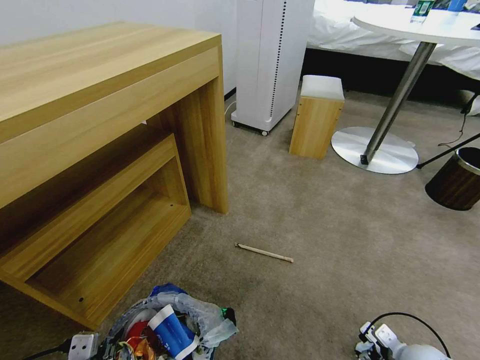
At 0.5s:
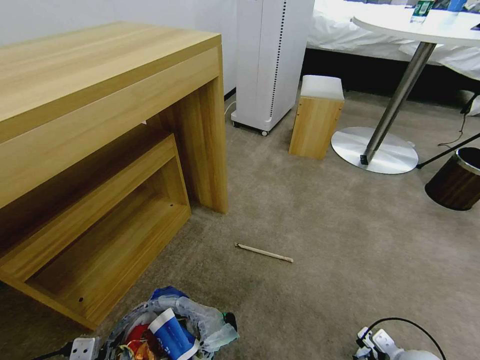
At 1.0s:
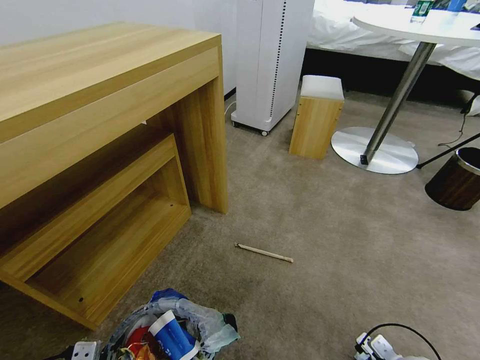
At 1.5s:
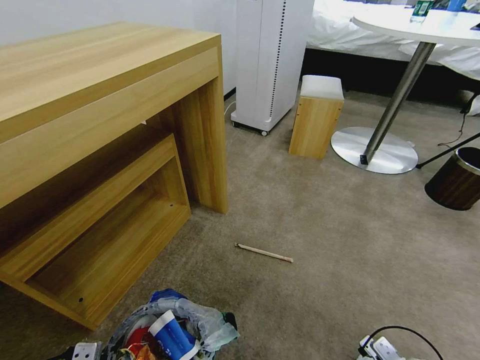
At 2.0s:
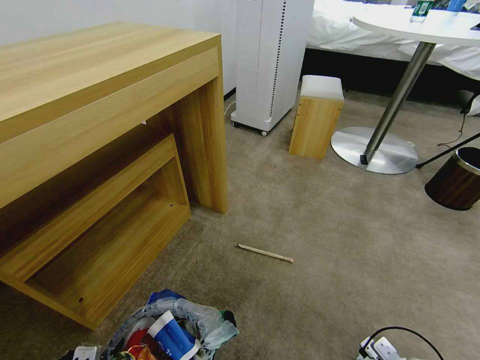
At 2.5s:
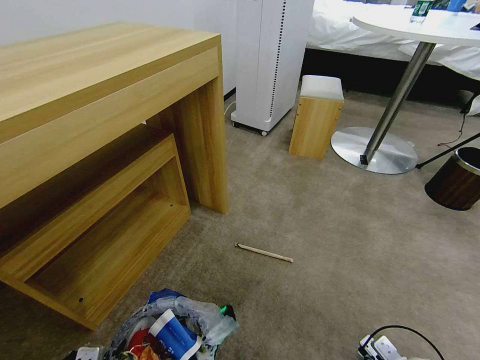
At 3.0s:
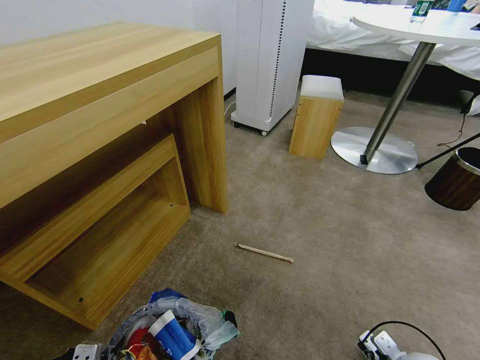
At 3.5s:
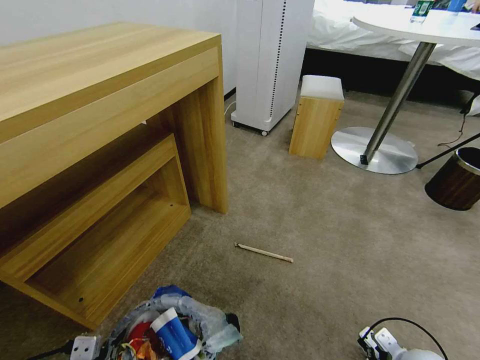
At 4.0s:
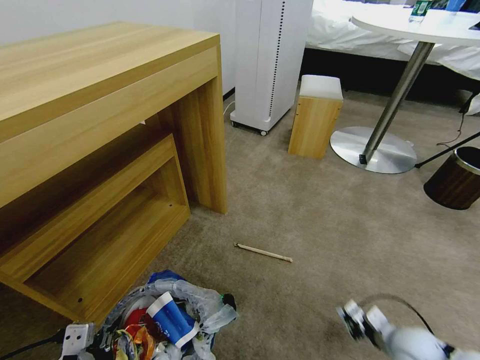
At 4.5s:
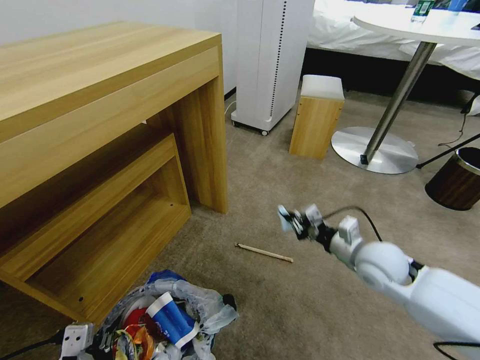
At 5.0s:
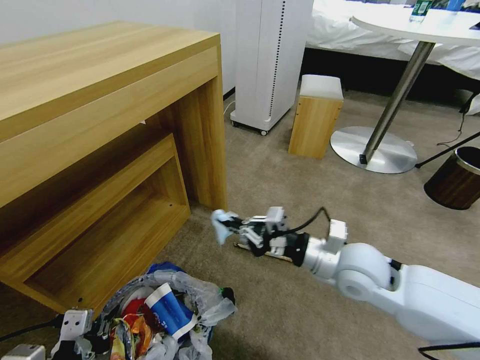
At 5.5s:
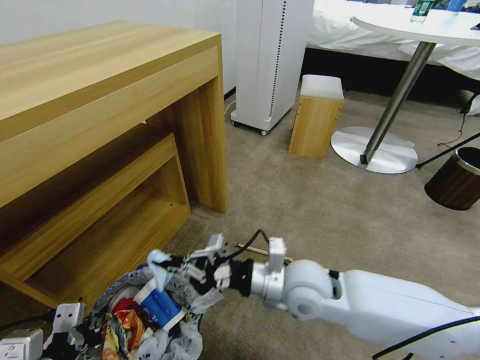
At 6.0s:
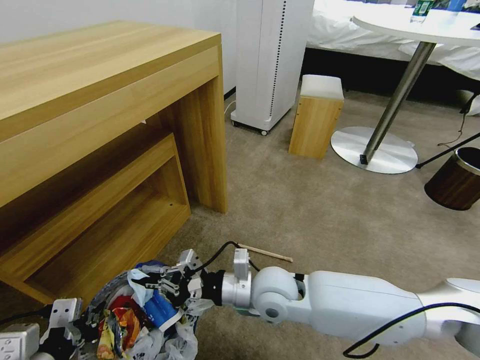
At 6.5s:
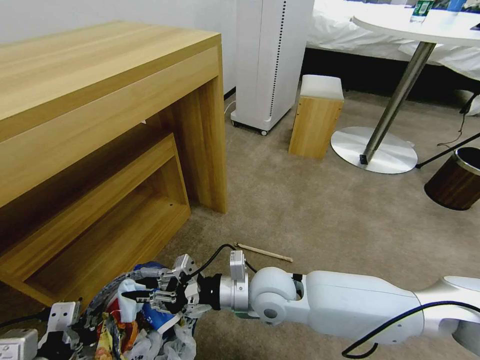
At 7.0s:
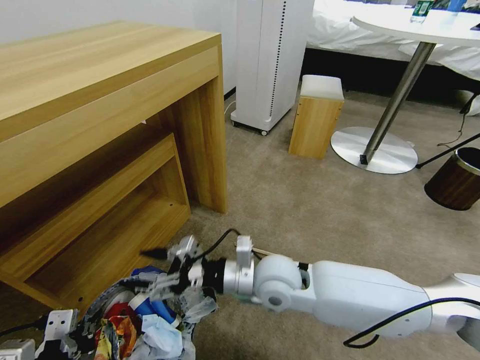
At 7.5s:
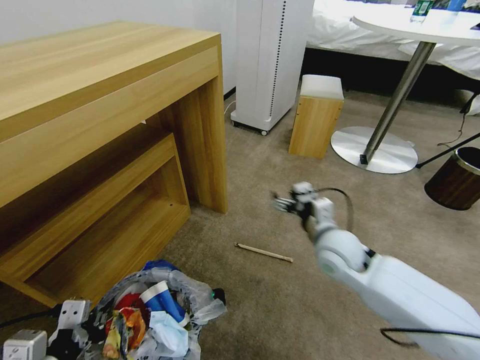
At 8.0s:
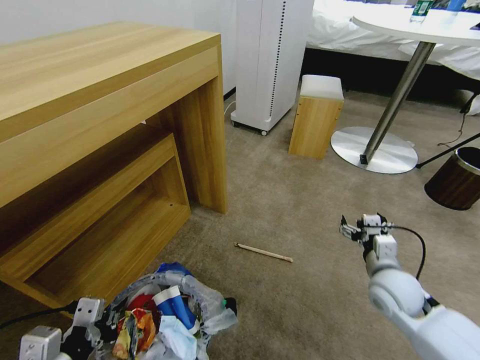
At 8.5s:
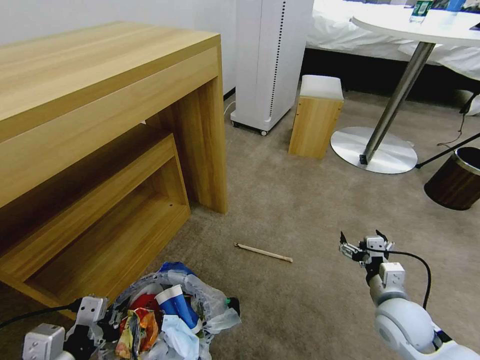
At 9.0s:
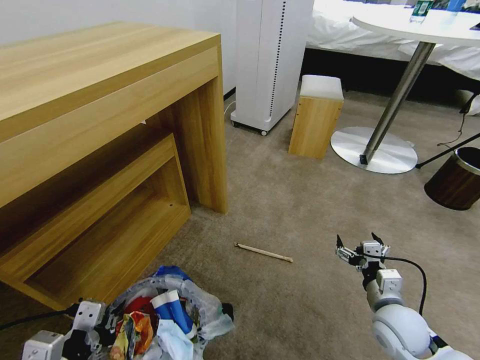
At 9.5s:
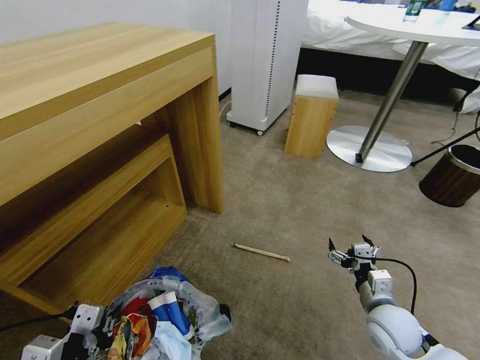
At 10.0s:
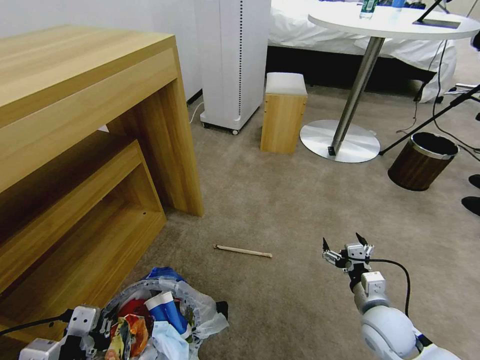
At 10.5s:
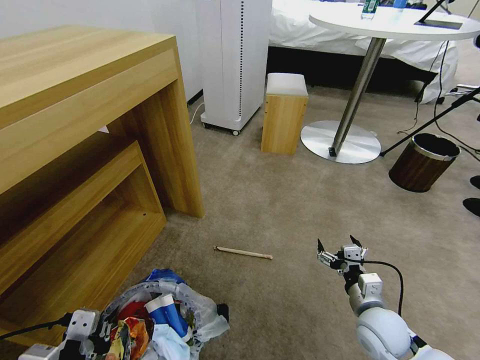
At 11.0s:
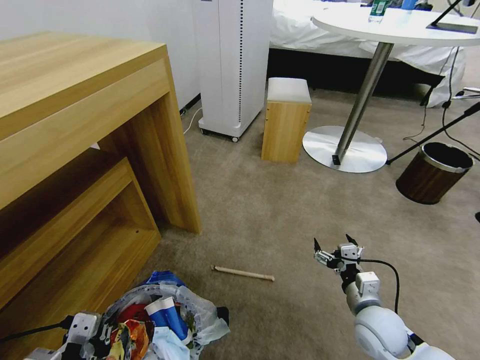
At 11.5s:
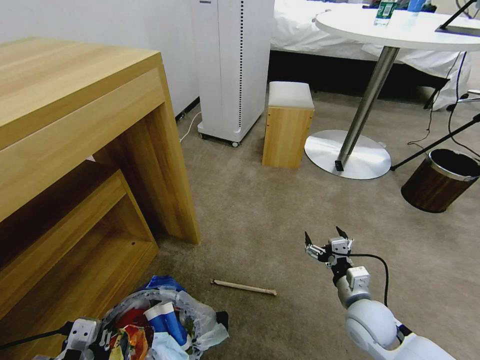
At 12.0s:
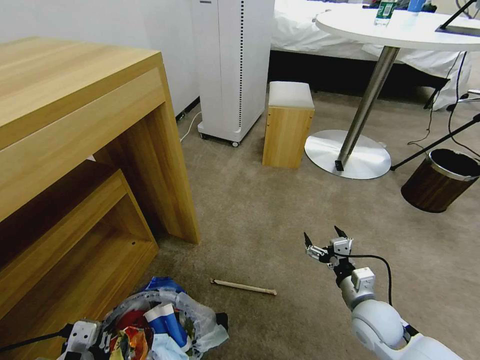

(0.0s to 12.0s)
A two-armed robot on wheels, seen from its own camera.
Task of the whole recording: Pick up the trash bin and place the garbage on the floor into it.
0.0s - 2.0s: The grippers move only a little.
2.0s - 4.0s: The right gripper shifts roughly 5 cm forward, and closes.
4.0s - 6.0s: The left gripper ends up approximately 5 cm from where it was. The right gripper goes roughly 35 cm to the left and upward.
6.0s - 8.0s: The right gripper is displaced to the right by some 25 cm, and opens its fingers.
8.0s - 10.0s: The right gripper travels backward and downward by about 10 cm.

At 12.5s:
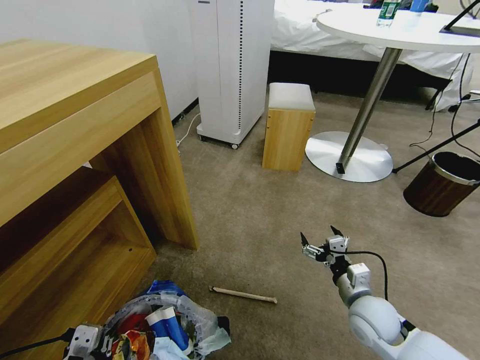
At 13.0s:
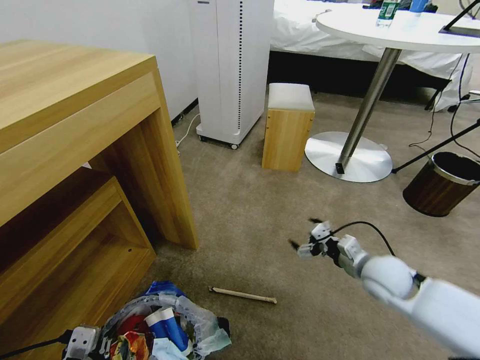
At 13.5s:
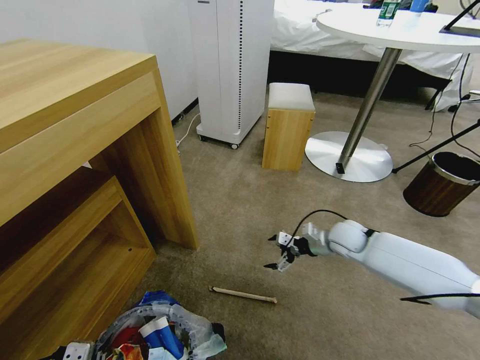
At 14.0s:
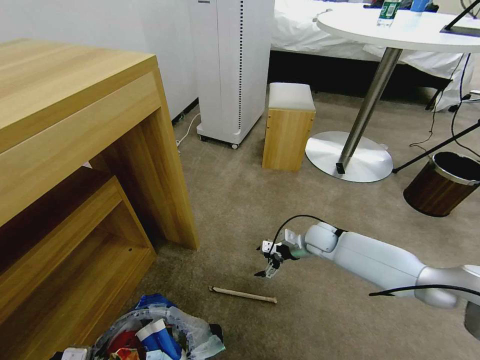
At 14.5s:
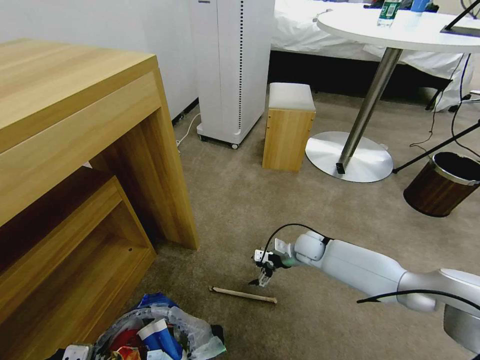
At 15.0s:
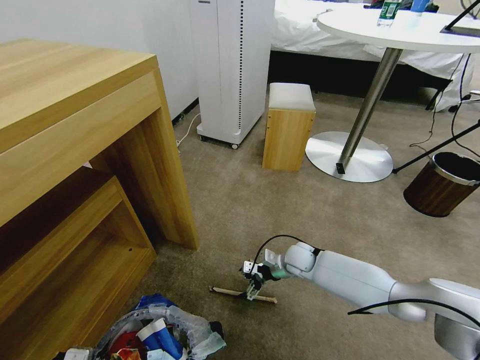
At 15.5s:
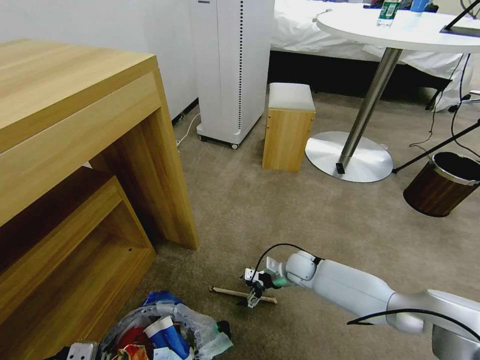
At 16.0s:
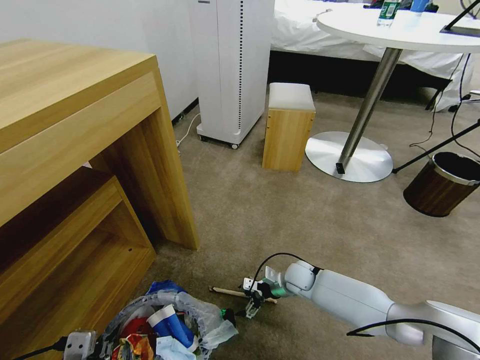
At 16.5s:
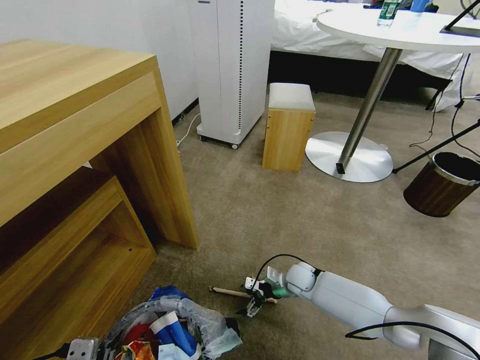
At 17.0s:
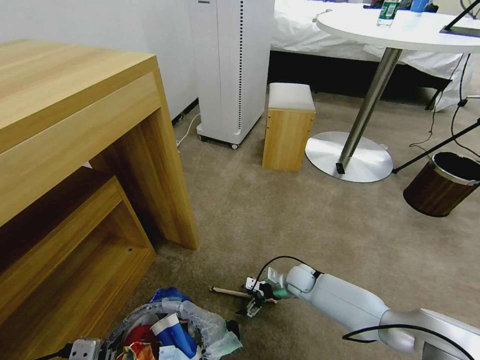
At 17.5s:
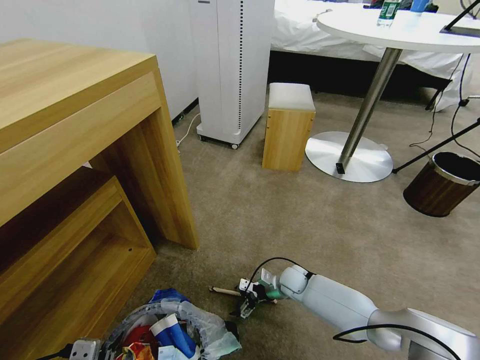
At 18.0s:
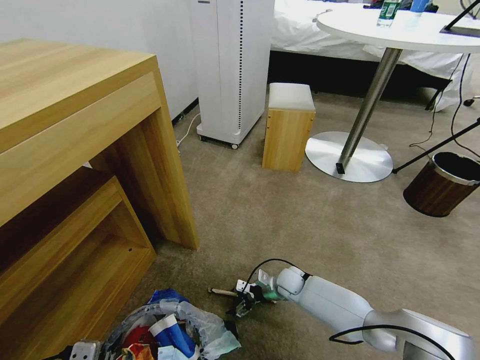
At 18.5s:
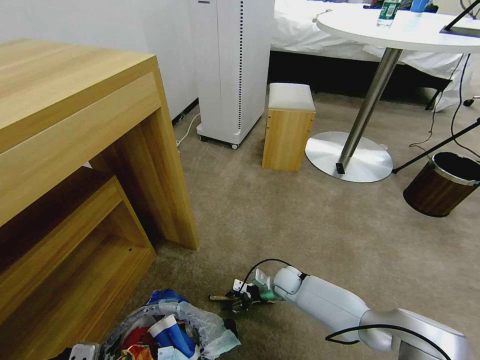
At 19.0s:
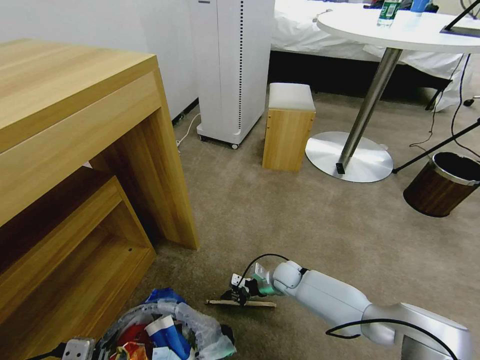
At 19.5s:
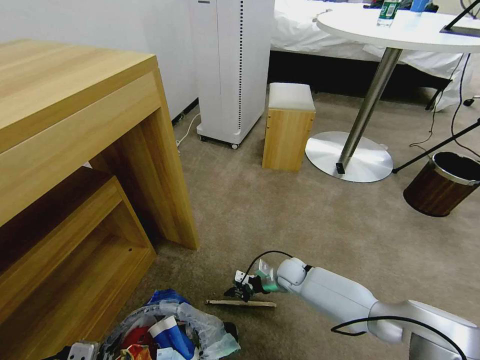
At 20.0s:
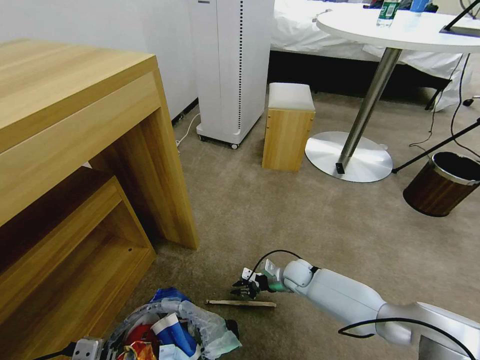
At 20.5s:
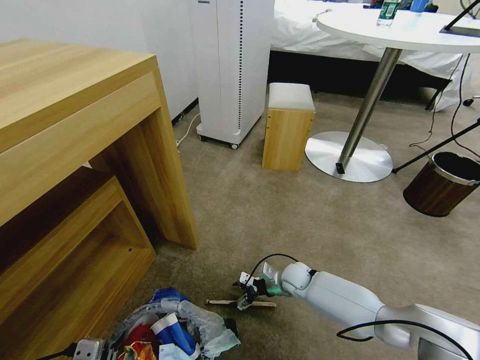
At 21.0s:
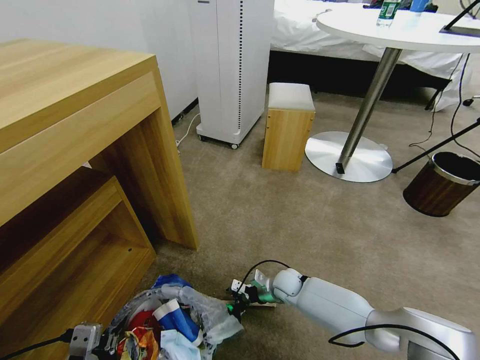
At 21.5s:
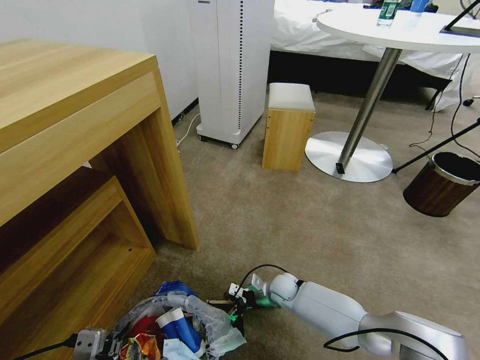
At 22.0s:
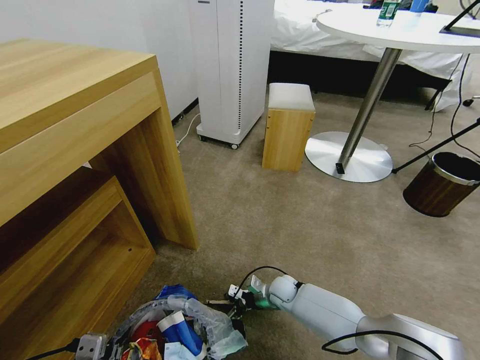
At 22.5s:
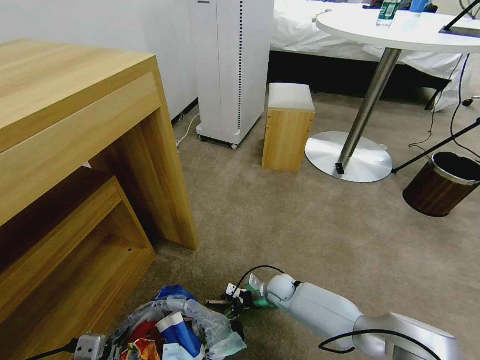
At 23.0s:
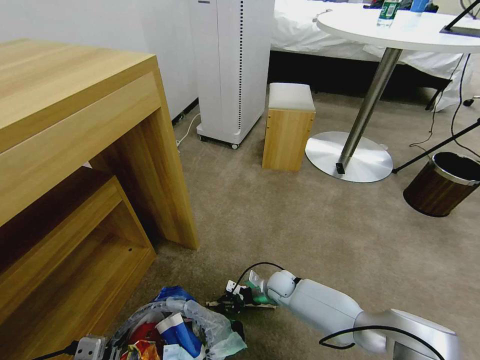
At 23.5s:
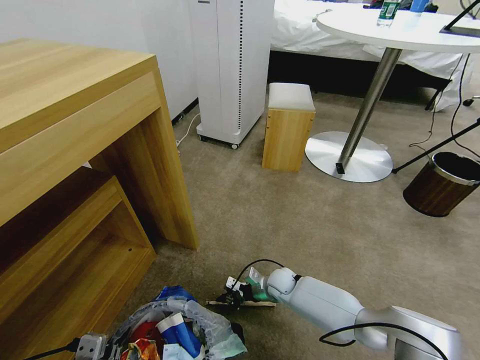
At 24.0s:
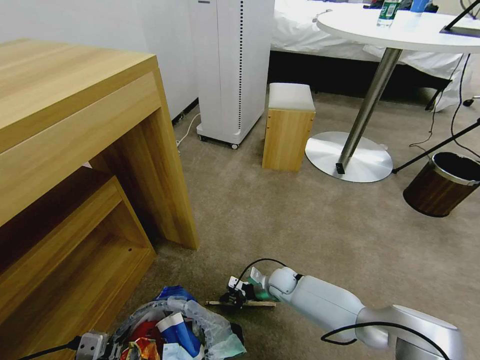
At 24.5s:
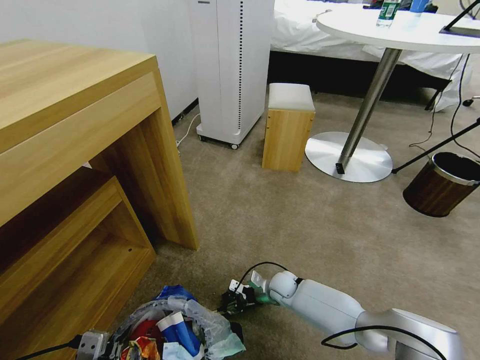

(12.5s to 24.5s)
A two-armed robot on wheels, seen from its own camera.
Task of the whole recording: Pick up the trash bin and place the garbage on the floor into it.
12.5s - 14.5s: The right gripper is displaced forward by about 20 cm.
14.5s - 16.5s: The right gripper moves downward and backward, roughly 10 cm.
16.5s - 18.5s: The right gripper closes.
18.5s - 20.5s: The right gripper closes, then opens again.
20.5s - 22.5s: The right gripper changes place by roughly 5 cm.
22.5s - 24.5s: The right gripper closes, then opens again.

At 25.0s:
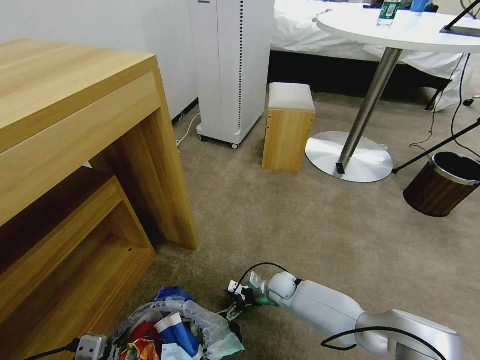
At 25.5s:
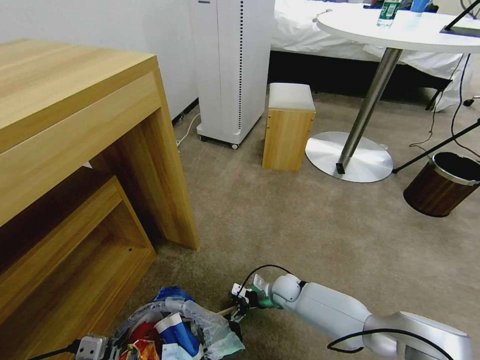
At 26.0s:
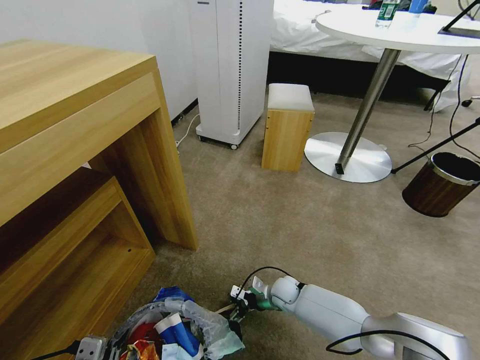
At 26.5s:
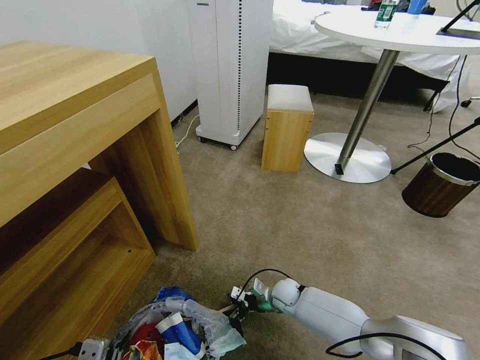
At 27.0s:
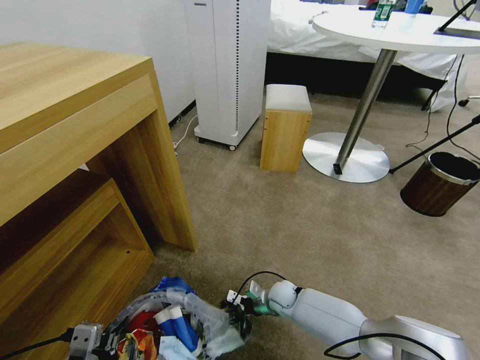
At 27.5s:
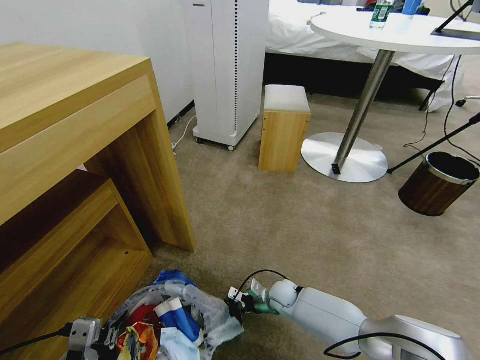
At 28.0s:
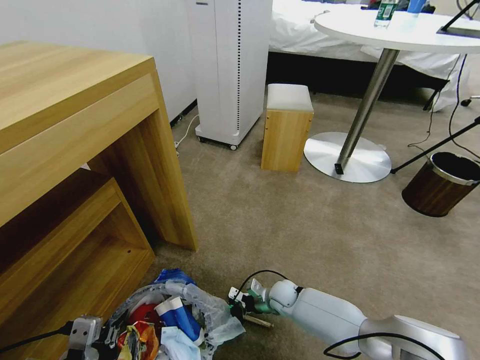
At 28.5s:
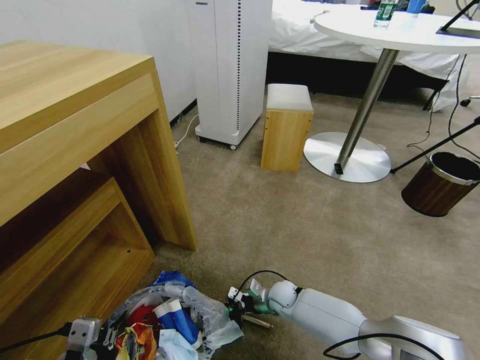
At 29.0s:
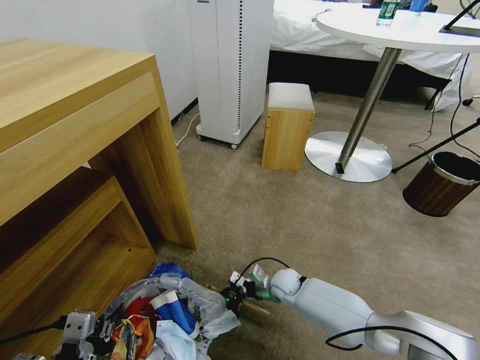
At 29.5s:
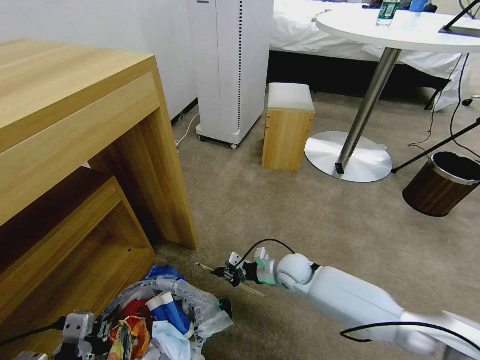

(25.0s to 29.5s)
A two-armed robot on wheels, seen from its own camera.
Task of the whole recording: Pick up the trash bin and place the garbage on the floor into it.
25.0s - 27.0s: The grippers stay close to where they were, moving slightly.
27.0s - 29.5s: The right gripper is displaced upward by about 10 cm, and closes up.
